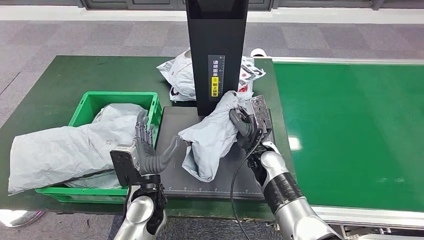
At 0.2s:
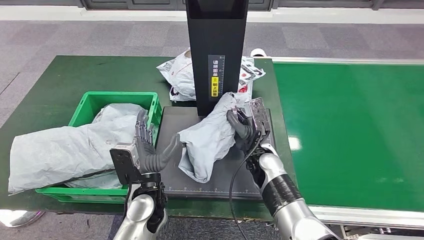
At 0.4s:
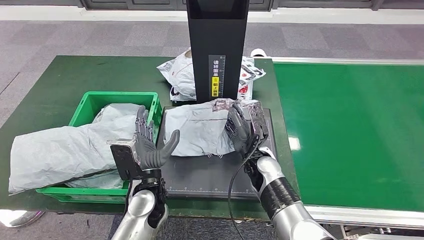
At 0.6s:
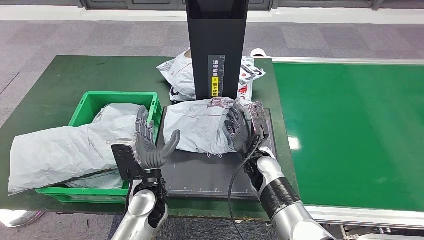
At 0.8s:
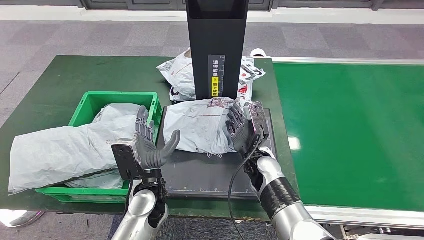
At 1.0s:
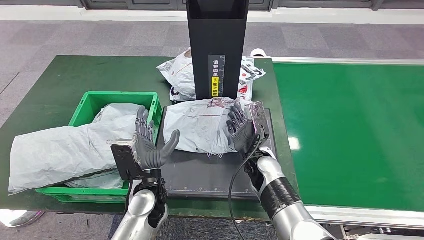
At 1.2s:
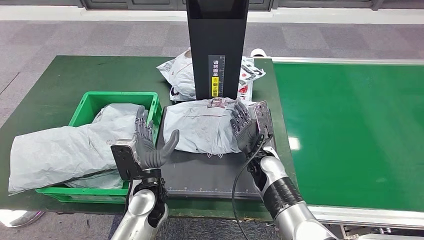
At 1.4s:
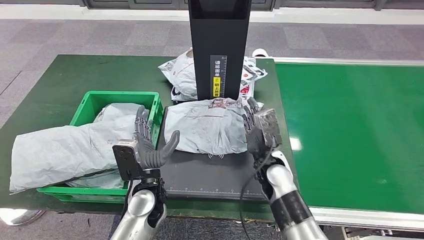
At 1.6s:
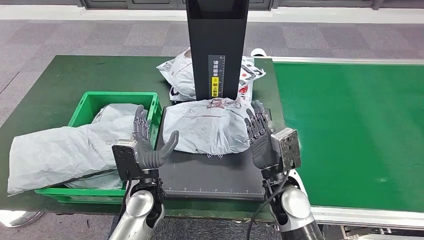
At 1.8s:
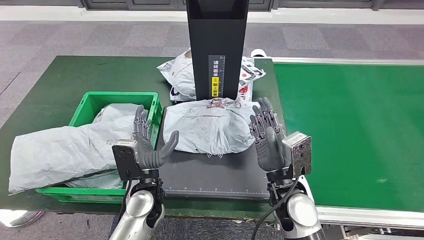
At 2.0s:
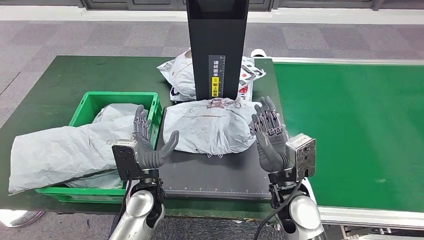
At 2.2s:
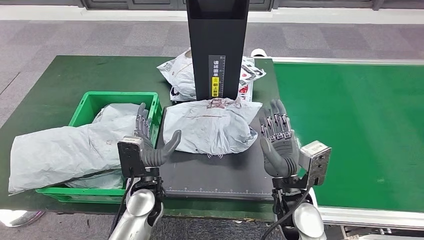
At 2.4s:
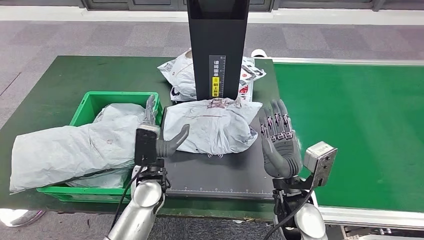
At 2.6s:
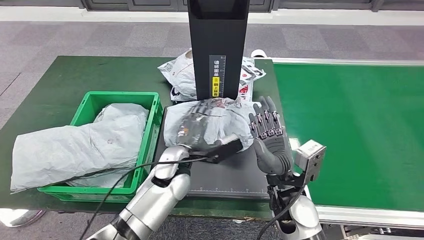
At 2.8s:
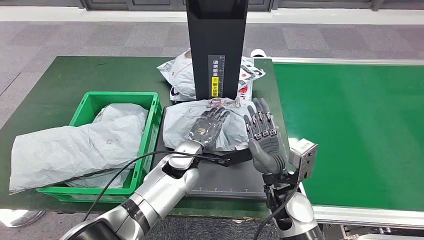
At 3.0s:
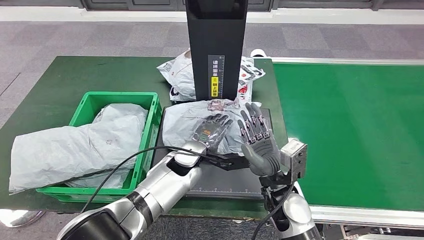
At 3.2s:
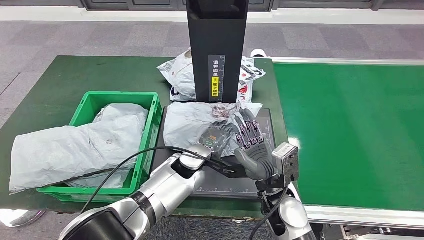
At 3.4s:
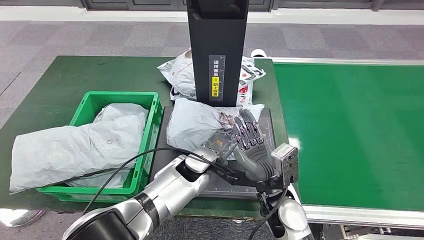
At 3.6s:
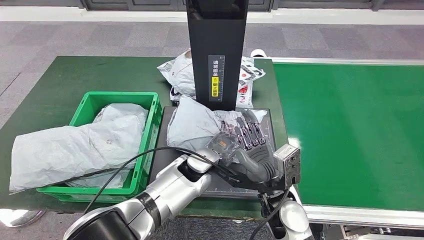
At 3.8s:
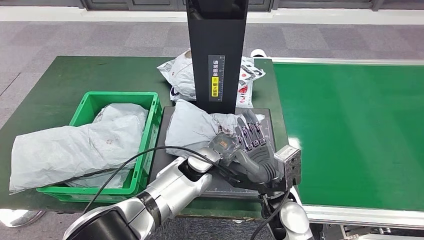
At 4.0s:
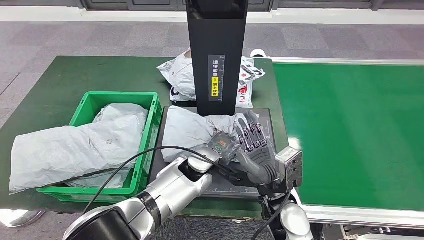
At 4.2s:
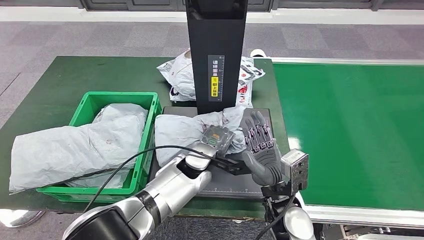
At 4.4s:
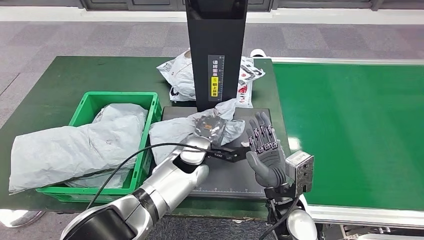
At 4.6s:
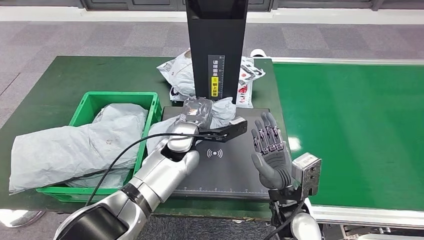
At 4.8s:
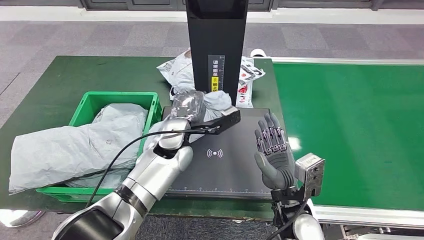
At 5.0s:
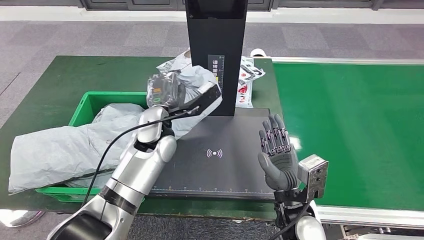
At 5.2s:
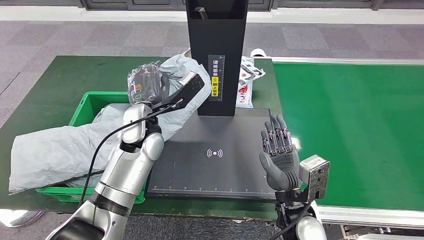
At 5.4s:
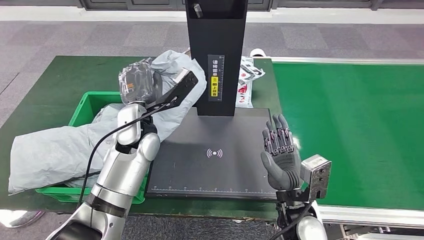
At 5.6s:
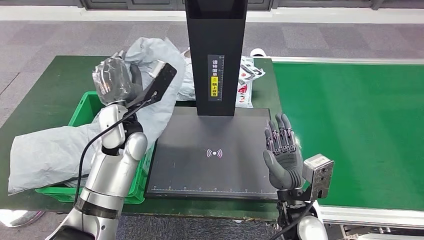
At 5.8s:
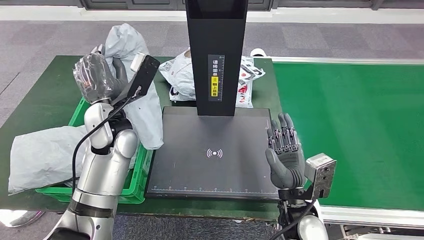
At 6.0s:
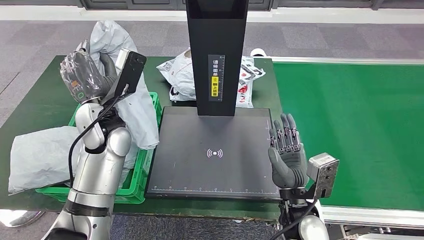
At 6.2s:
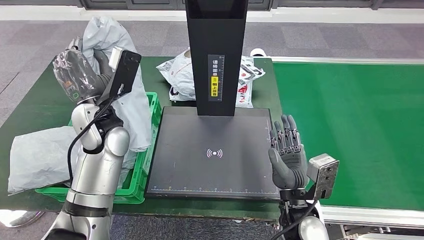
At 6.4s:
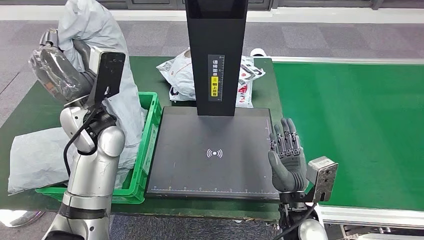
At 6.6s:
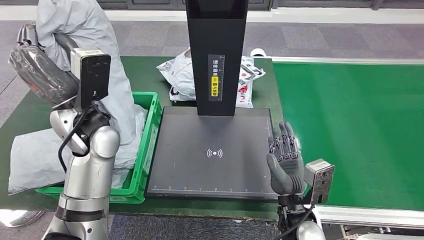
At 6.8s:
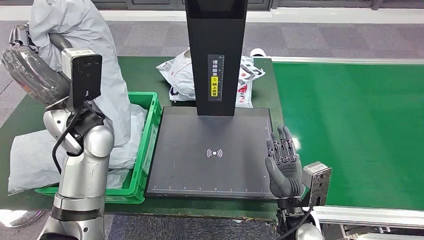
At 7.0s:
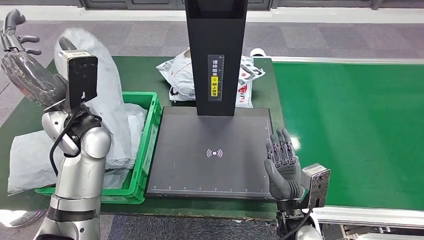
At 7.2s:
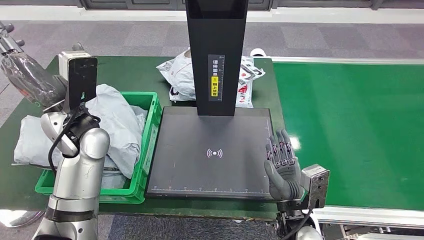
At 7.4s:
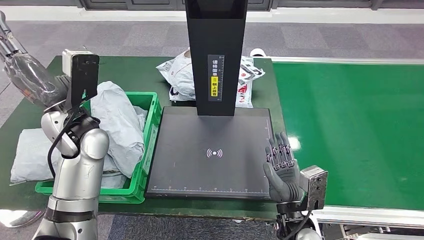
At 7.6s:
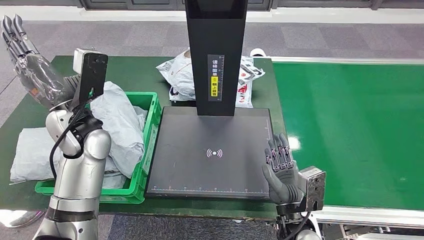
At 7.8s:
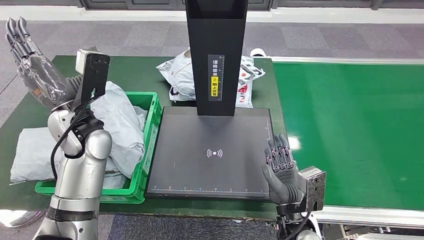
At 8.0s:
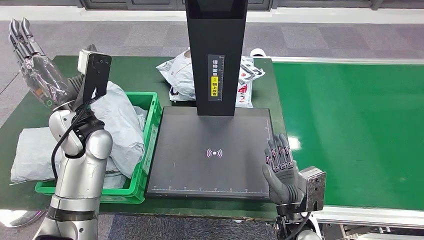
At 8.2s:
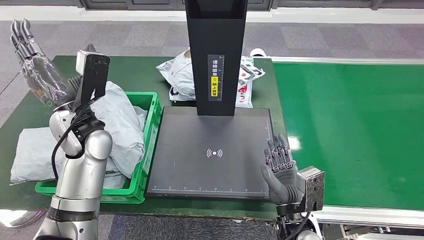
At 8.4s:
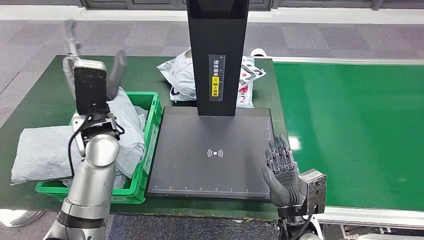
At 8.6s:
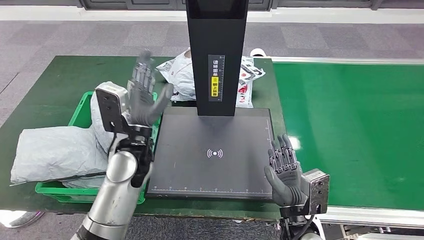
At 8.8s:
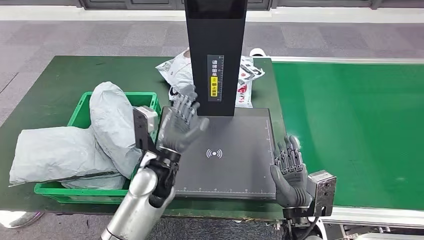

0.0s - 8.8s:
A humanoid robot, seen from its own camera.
Step, 0.0s - 1.2s: Place the parcel onto the inbound machine.
Step, 1.4s - 5.2s: Pick up the parcel from the inbound machine.
Step, 5.6s - 8.6s: Place the parcel into the delivery box.
0.0s - 1.4s: The hands make only small movements.
3.0s - 4.4s: The hands make only small movements.

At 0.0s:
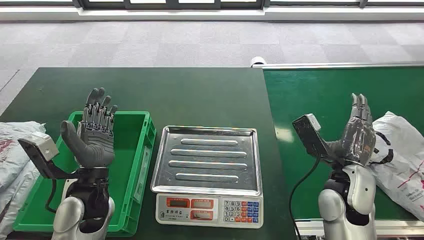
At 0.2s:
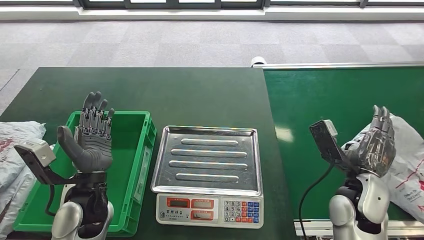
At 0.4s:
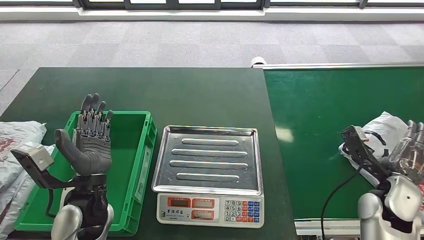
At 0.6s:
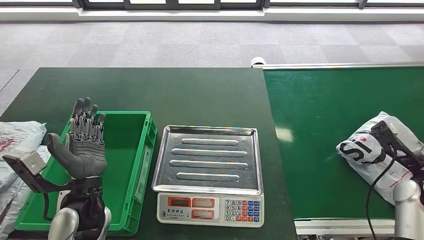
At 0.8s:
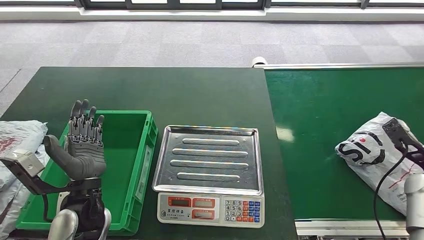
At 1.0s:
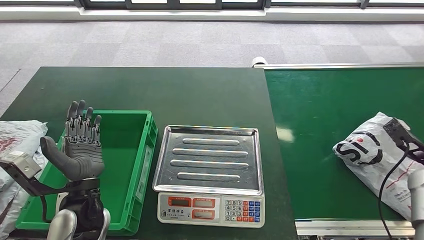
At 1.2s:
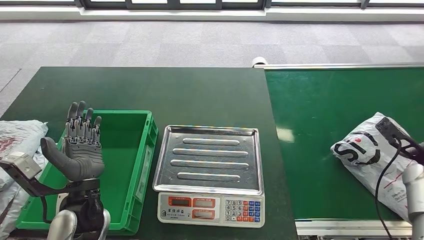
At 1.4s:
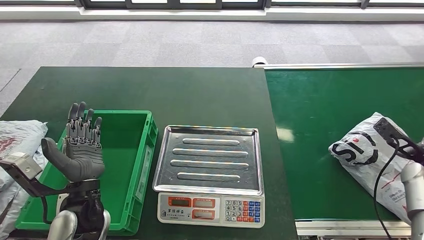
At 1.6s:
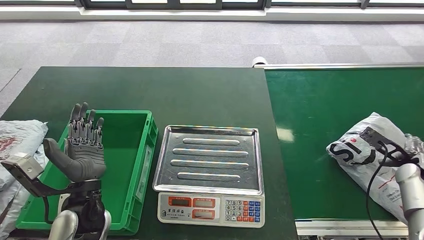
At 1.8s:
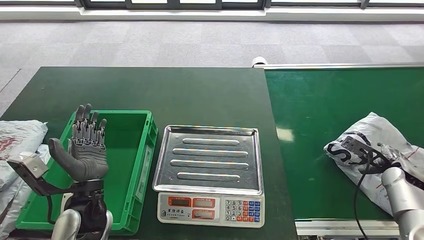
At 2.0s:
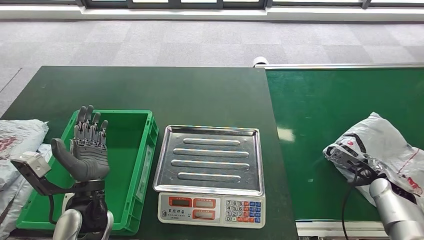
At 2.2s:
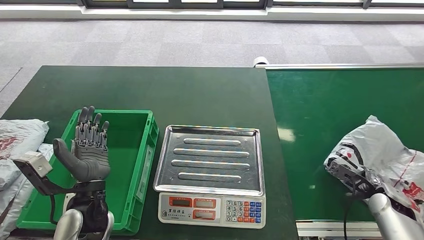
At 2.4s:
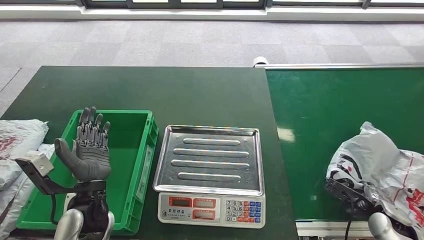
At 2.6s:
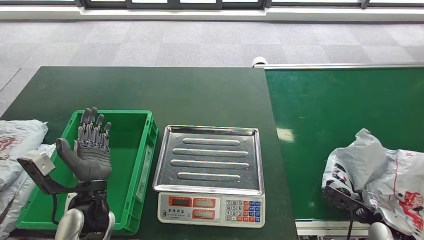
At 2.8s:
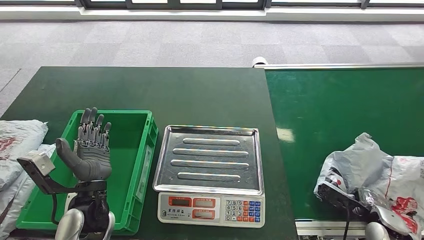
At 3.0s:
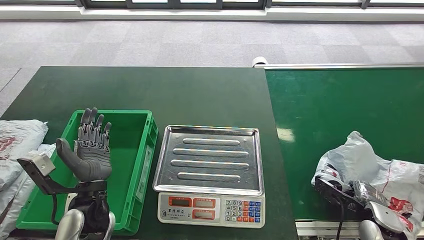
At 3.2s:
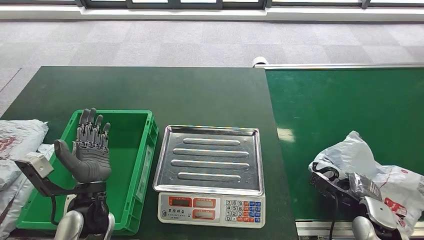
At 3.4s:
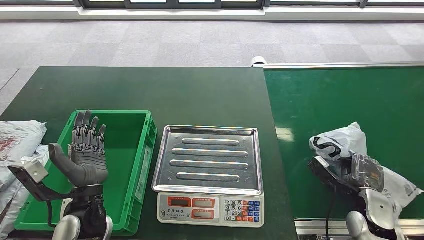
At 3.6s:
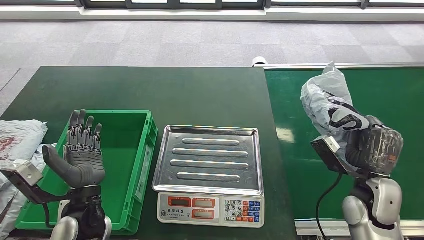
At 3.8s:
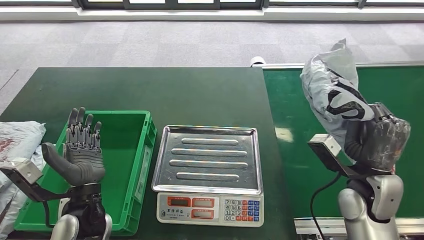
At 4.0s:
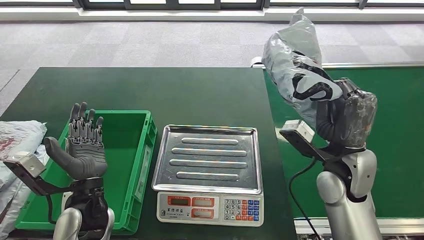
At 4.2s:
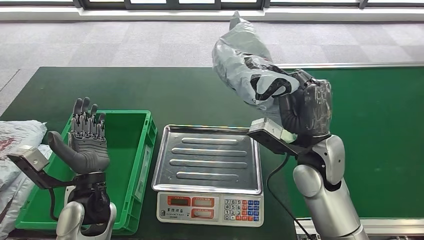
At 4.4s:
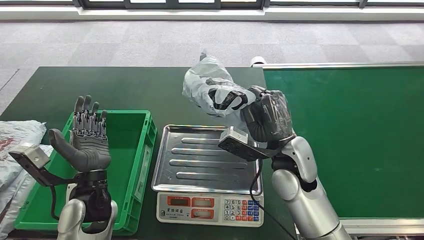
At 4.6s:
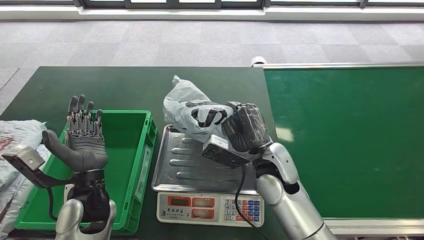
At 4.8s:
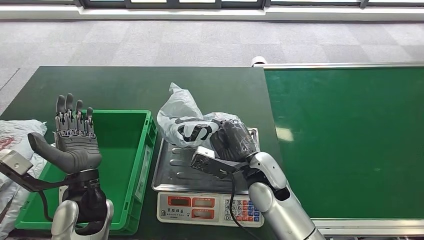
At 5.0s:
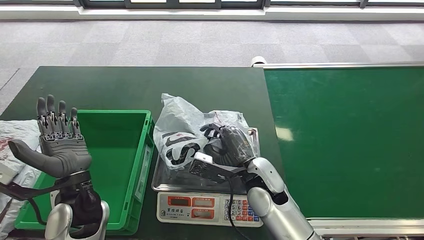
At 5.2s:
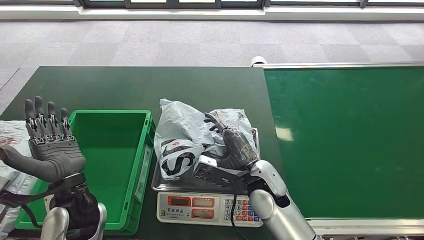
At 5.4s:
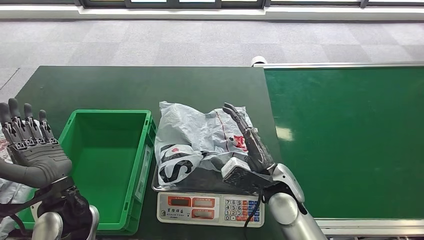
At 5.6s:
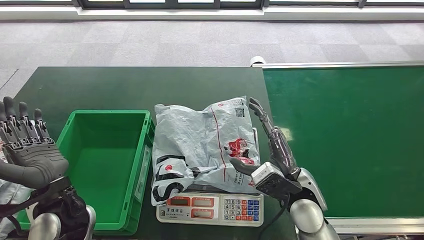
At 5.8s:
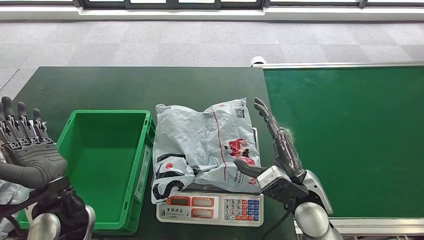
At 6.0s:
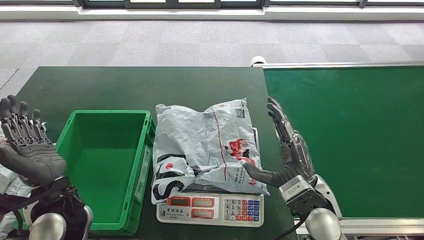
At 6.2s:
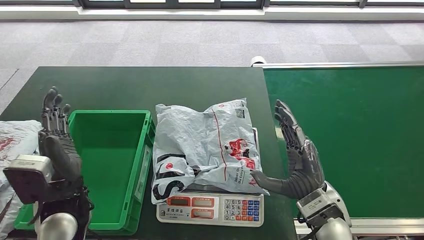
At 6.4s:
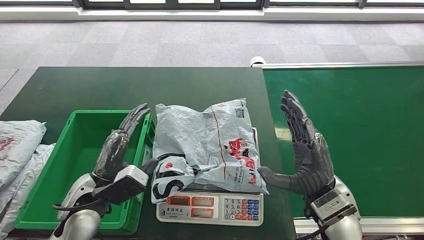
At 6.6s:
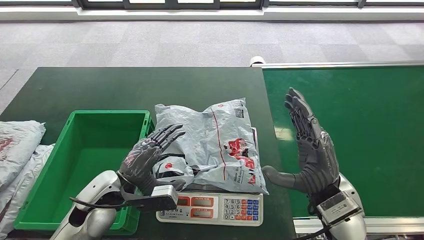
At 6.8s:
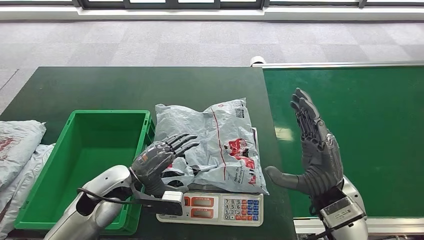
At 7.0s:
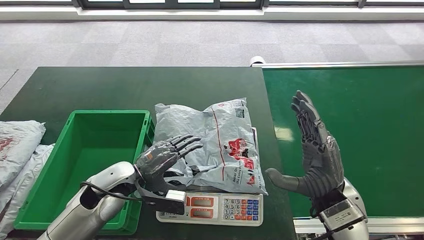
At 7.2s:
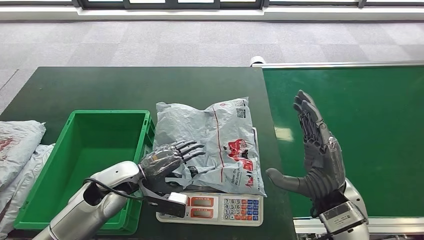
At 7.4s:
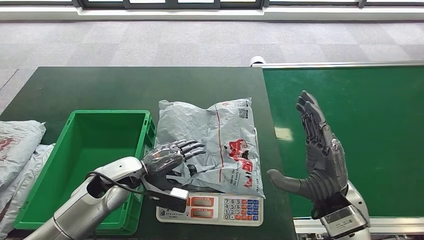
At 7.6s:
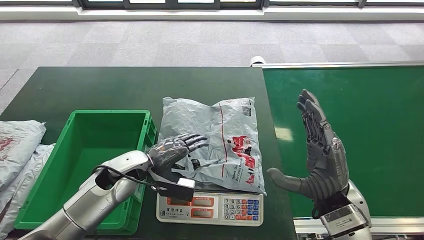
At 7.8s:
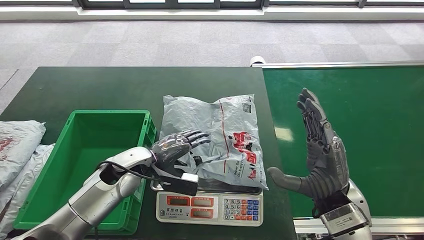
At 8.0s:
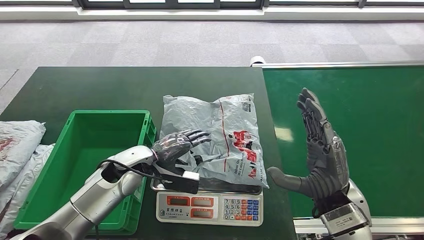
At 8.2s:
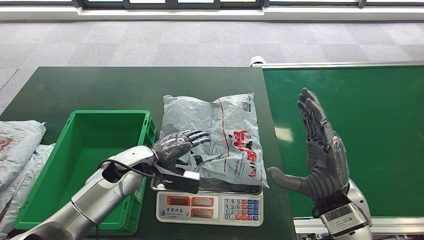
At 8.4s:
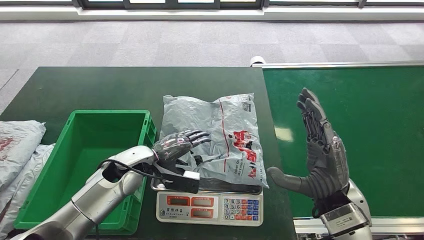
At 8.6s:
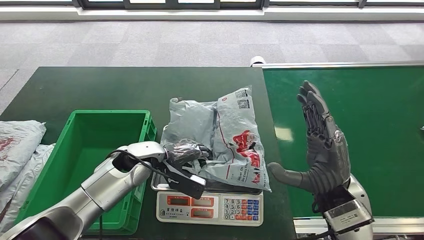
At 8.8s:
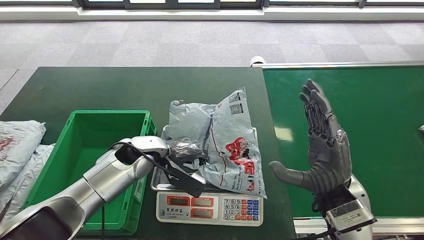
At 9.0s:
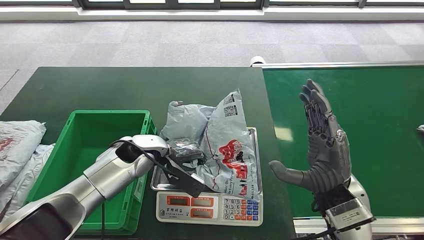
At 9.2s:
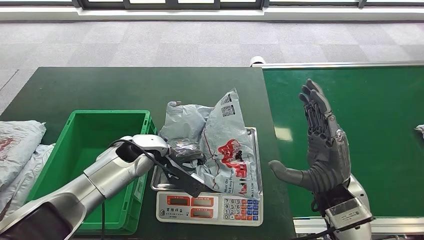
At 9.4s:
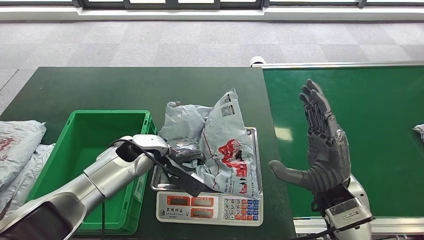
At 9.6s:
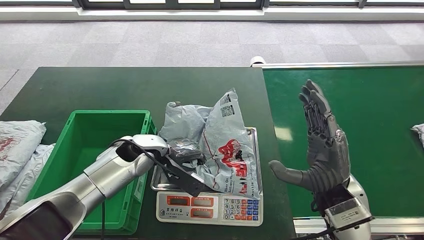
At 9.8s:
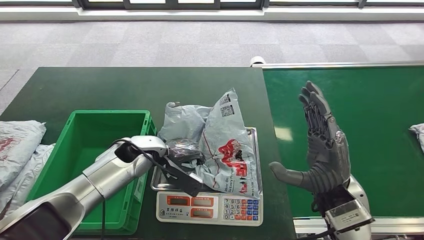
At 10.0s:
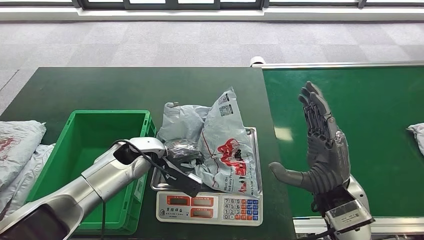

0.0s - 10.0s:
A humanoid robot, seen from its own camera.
Step, 0.0s - 4.2s: Take the parcel off the conveyor belt.
Step, 4.4s - 6.2s: Place the parcel onto the inbound machine.
1.4s - 2.8s: The right hand moves backward, downward and to the left, approximately 20 cm.
5.8s - 7.2s: The left hand goes approximately 5 cm forward. The right hand ends up some 5 cm from where it was.
7.2s - 8.6s: The left hand moves forward, roughly 5 cm.
8.6s - 10.0s: The hands make only small movements.
